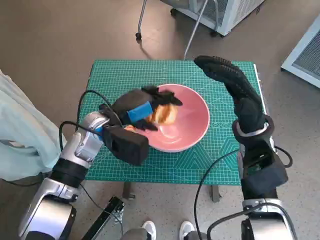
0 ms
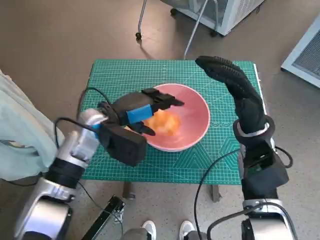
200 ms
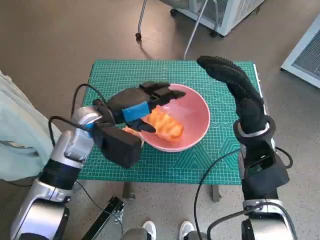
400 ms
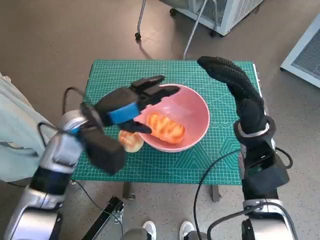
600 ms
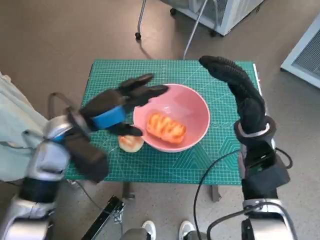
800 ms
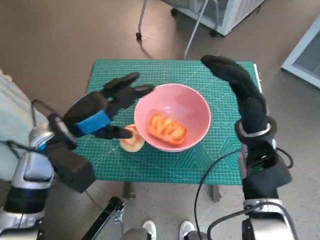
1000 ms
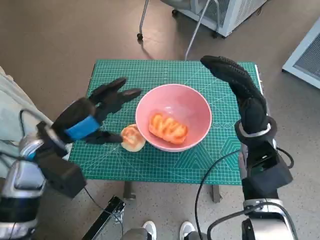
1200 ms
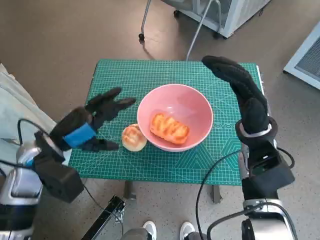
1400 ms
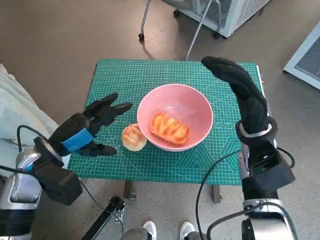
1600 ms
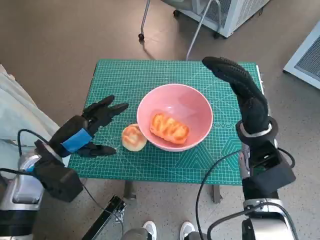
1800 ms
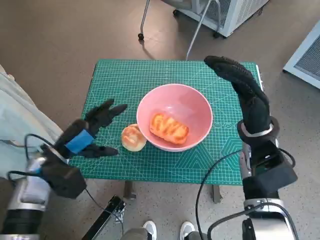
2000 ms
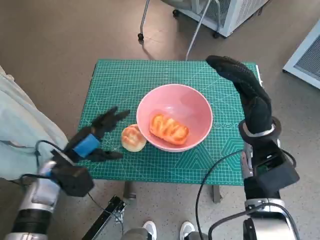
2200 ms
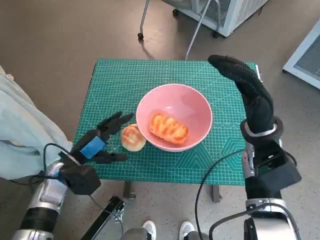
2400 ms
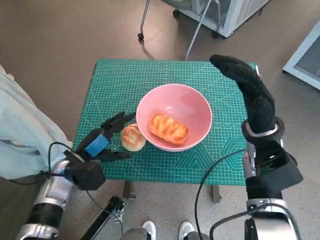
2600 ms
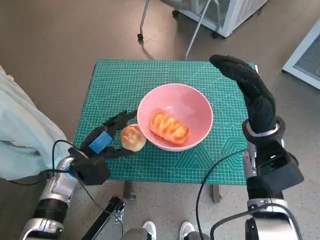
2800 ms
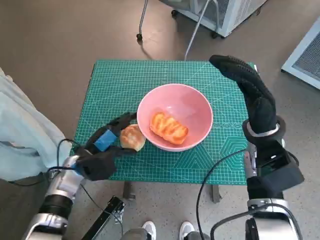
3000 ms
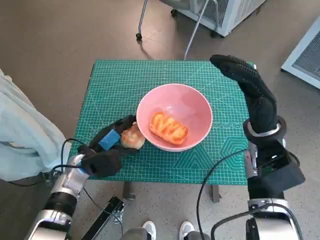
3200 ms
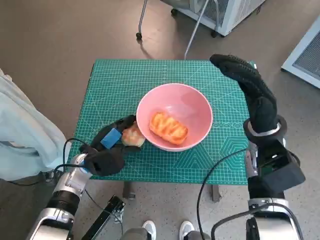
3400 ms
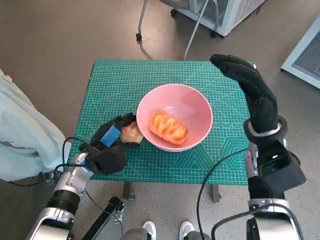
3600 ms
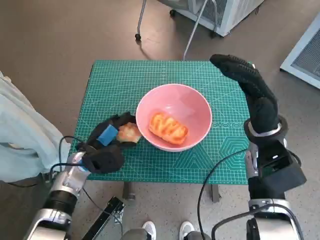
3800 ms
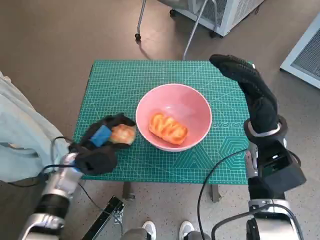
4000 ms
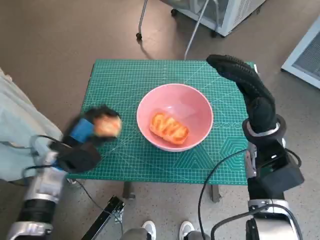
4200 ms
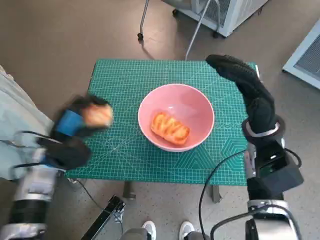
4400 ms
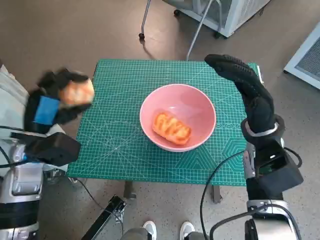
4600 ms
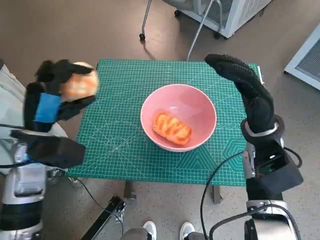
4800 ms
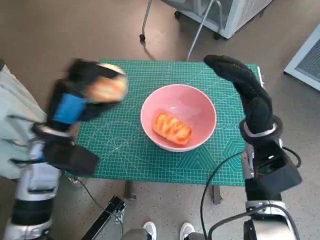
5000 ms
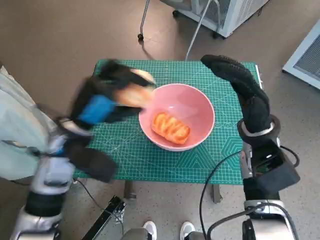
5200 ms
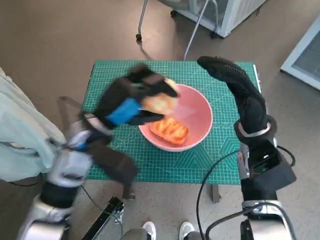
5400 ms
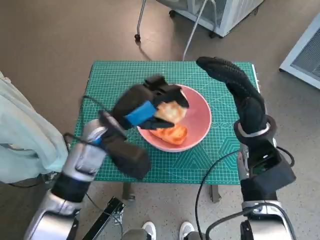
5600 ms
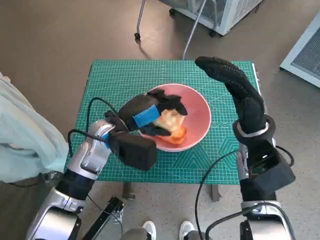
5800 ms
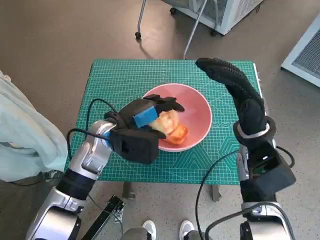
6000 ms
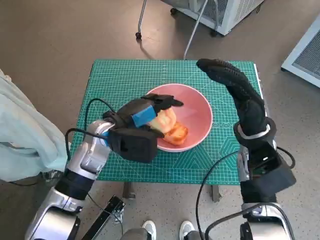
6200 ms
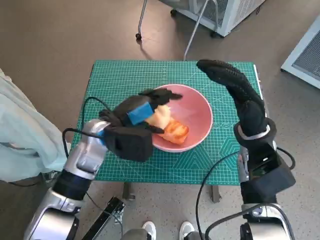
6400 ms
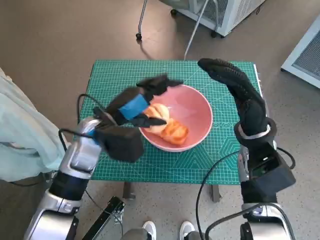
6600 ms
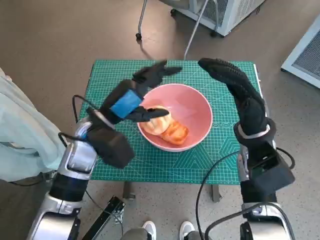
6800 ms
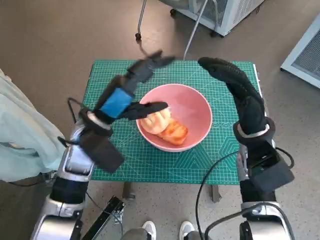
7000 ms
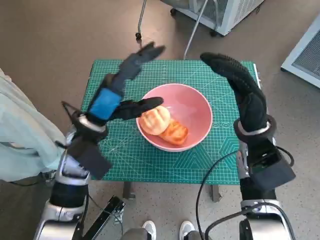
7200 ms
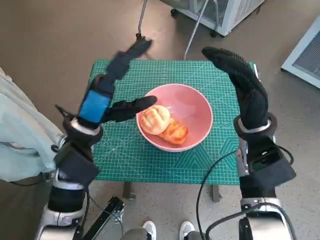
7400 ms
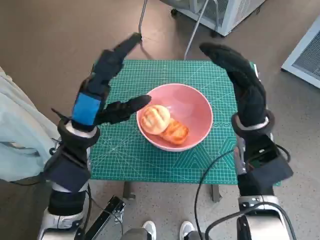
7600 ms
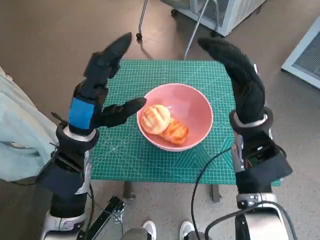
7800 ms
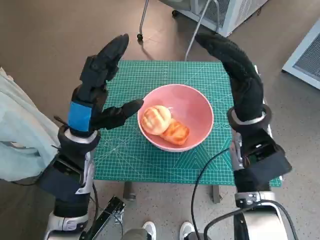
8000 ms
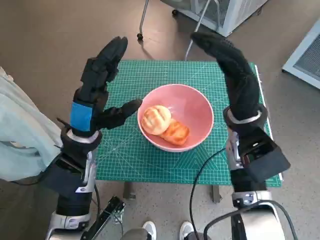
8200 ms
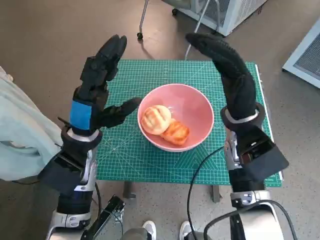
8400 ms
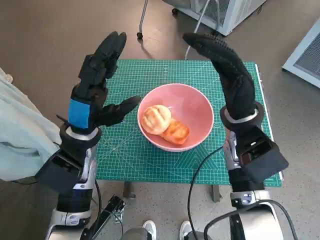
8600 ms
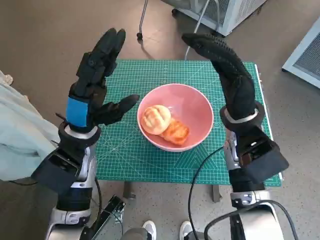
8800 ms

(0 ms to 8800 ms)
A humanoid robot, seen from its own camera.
Task of the whole recording: Push the bowl to the center of the table and put the bread into the bowl.
Step, 600 ms - 3600 ms: Grasp the round bread with left hand.
Step, 3800 ms - 6600 ms: Place the round bread in pink bowl with left hand.
0 ms - 1400 ms: The left hand shifts some 10 cm to the left and backward.
1400 ms - 3000 ms: The left hand shifts about 10 cm downward.
3000 ms - 4400 ms: The left hand goes approximately 5 cm upward.
4400 ms - 5800 ms: The left hand shifts approximately 15 cm to the right.
5800 ms - 7400 ms: The left hand moves roughly 5 cm.

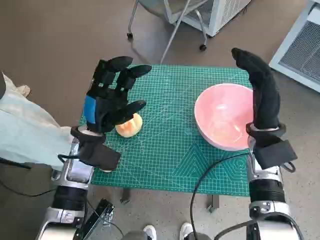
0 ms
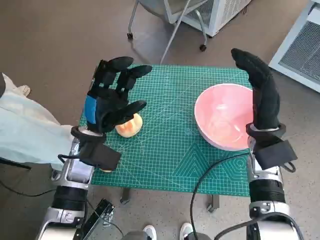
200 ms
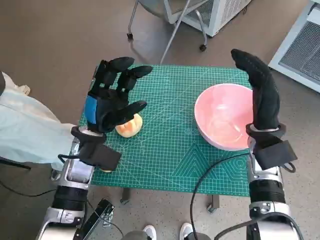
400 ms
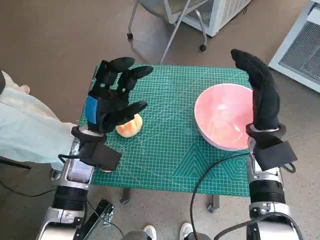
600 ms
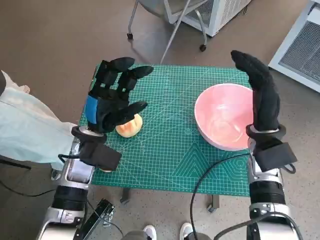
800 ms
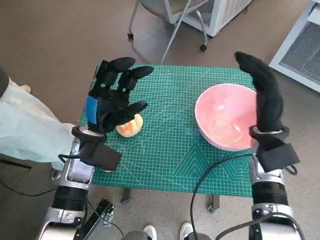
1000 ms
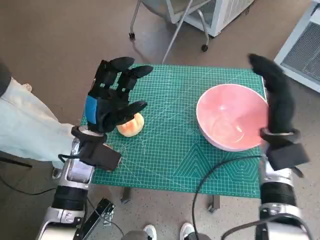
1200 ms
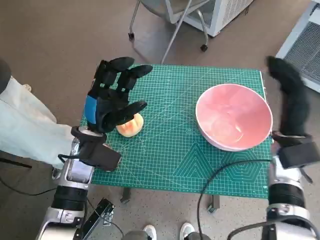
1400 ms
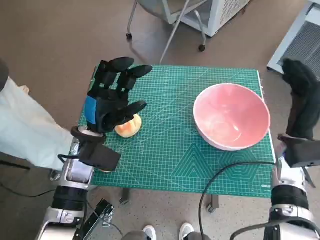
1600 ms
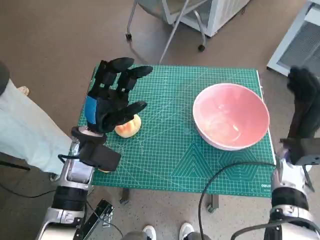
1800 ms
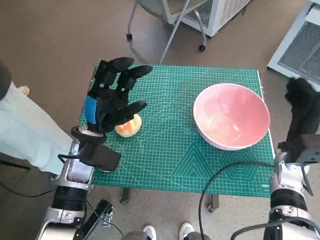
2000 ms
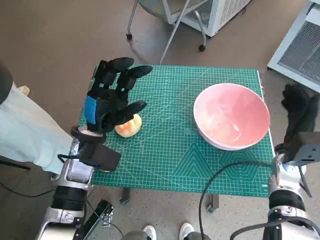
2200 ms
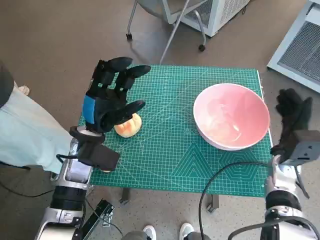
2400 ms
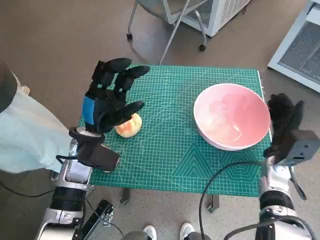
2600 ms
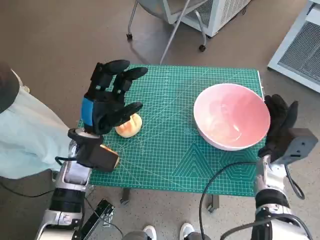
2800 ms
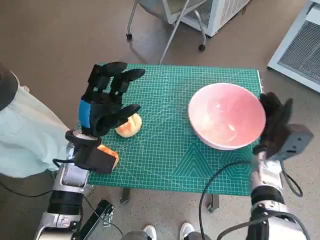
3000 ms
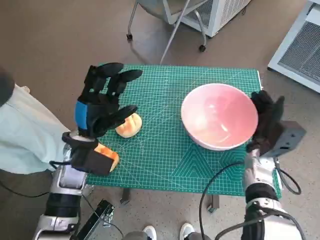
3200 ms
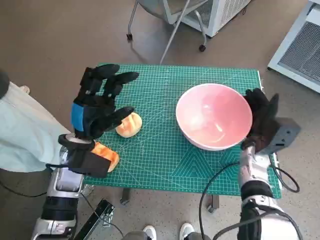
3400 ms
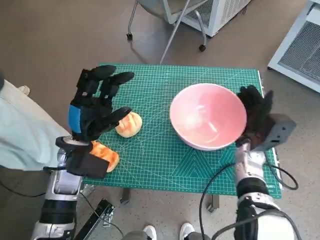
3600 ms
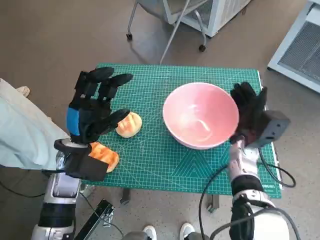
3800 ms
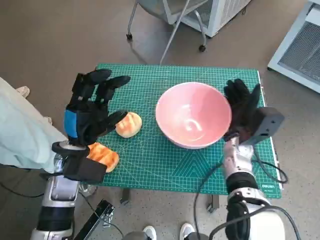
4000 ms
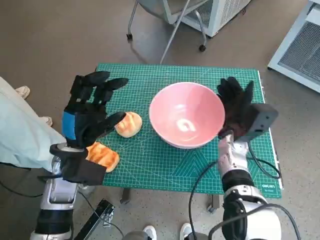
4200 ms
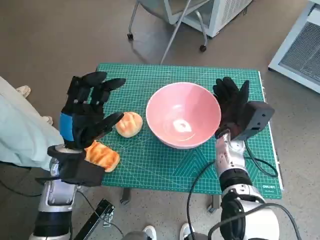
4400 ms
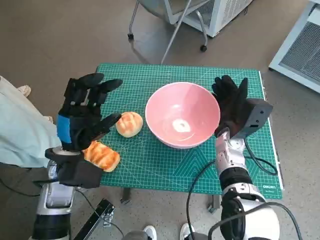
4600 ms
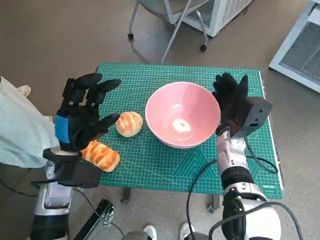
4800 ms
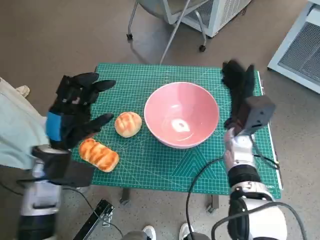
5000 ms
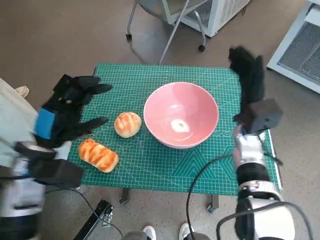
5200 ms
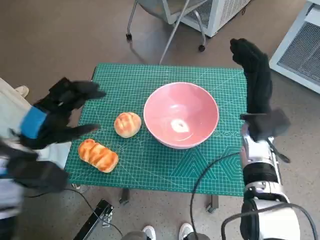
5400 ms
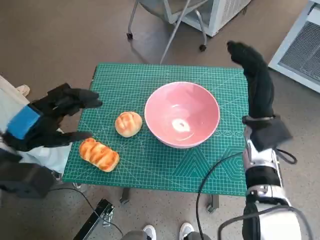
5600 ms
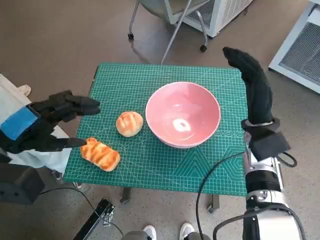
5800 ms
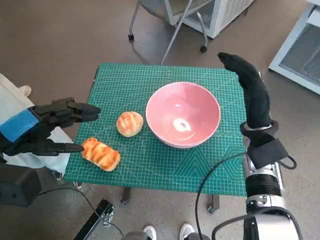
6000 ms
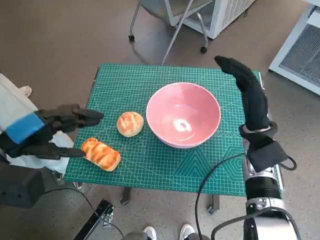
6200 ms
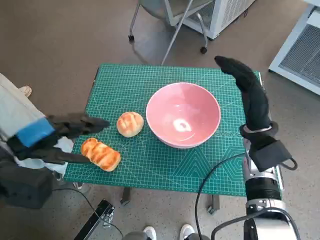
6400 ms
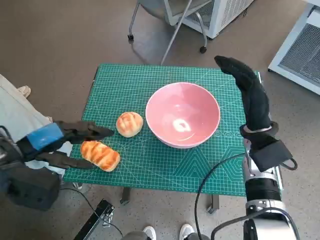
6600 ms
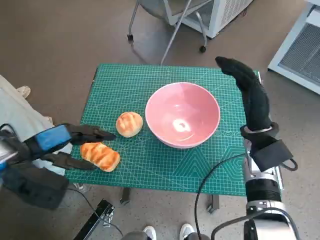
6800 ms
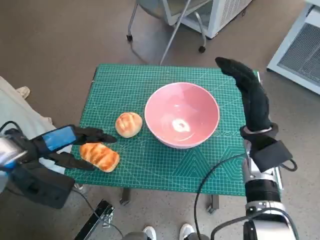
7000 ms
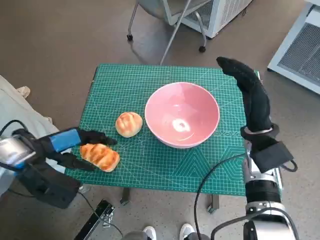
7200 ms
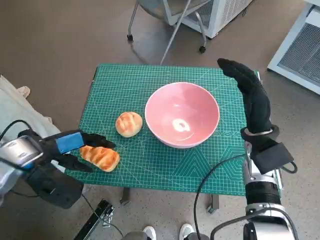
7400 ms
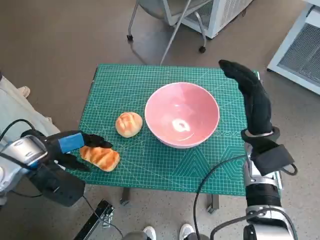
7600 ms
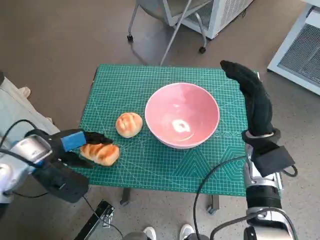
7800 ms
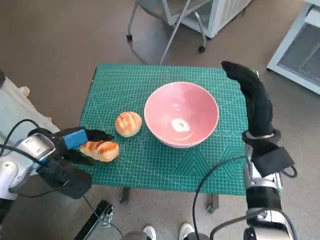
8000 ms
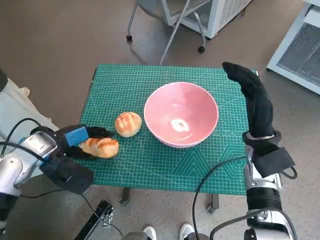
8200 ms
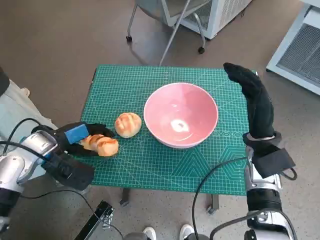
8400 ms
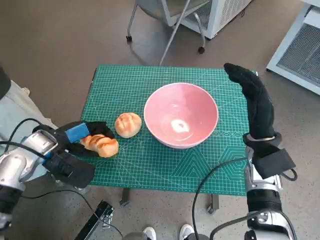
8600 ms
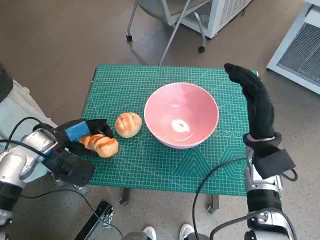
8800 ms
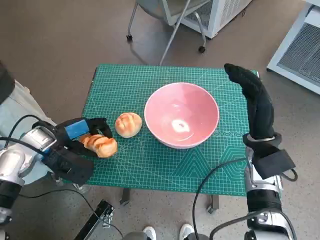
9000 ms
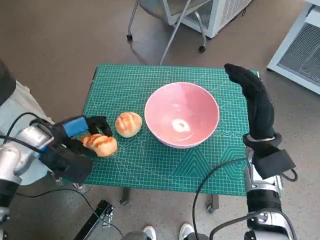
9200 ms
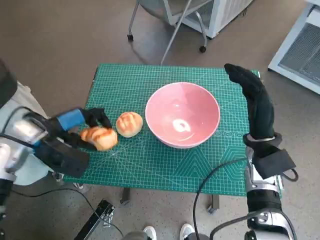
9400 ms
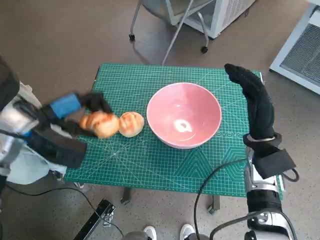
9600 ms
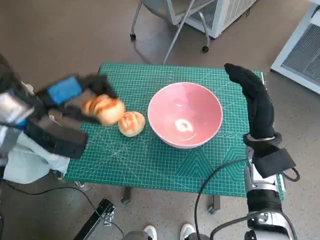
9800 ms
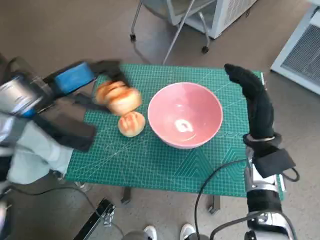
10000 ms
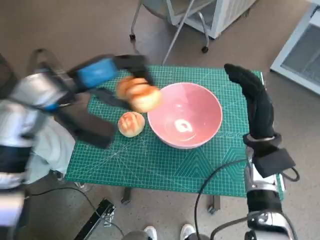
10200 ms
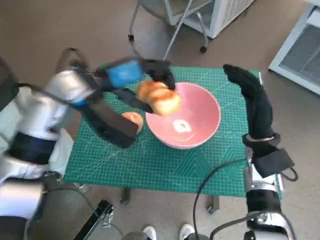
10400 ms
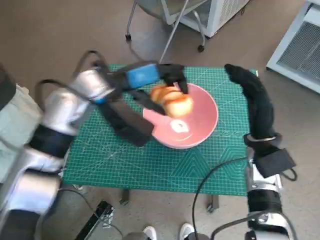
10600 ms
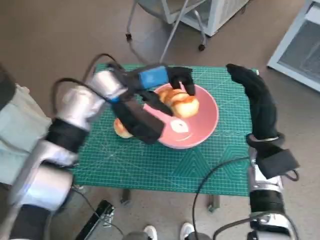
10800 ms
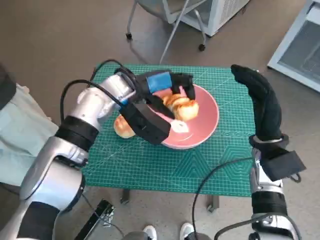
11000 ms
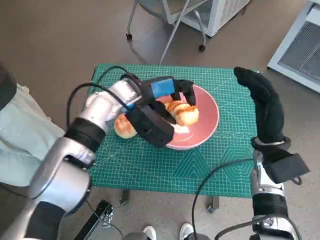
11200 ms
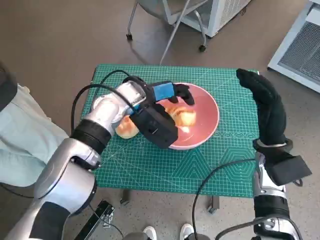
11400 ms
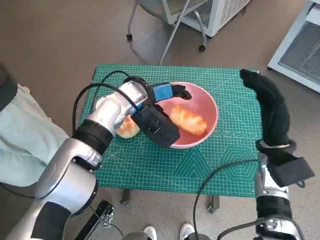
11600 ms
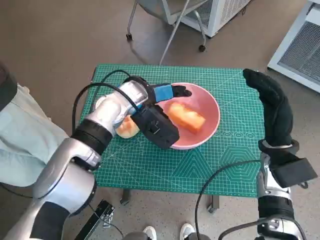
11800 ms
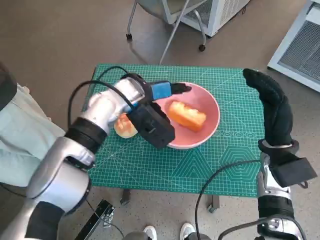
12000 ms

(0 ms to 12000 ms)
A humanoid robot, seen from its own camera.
Task of the whole recording: Push the bowl to the center of the table and put the bread into the bowl.
Step, 0 ms - 4800 ms: Move the pink bowl to the center of table with right hand.
Step, 5000 ms - 8400 ms: Grasp the long bread with left hand.
1600 ms - 3000 ms: The right hand shifts approximately 5 cm downward.
3000 ms - 4400 ms: The right hand heads to the left, covering about 10 cm.
4400 ms - 6000 ms: The right hand heads upward, covering some 5 cm. Meanwhile the left hand travels upward and to the left by some 15 cm.
6000 ms - 7600 ms: The left hand moves downward, about 5 cm.
7600 ms - 9000 ms: The left hand shifts by about 5 cm.
9000 ms - 10400 ms: The left hand shifts some 15 cm upward and to the right.
10400 ms - 12000 ms: The left hand shifts about 10 cm to the right and downward.

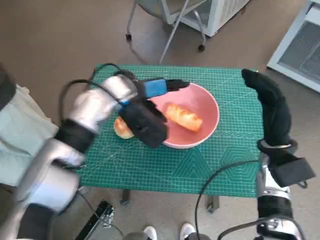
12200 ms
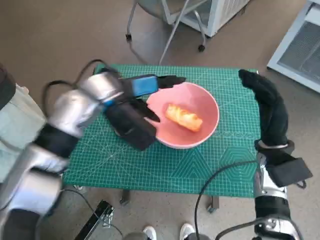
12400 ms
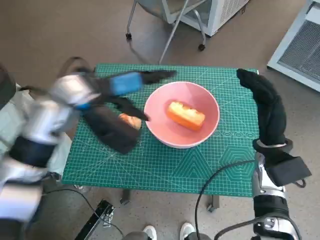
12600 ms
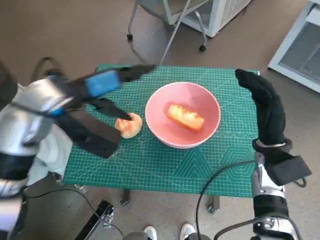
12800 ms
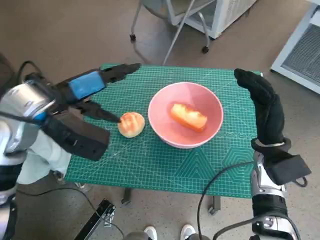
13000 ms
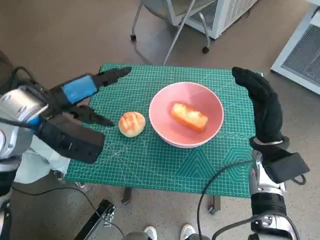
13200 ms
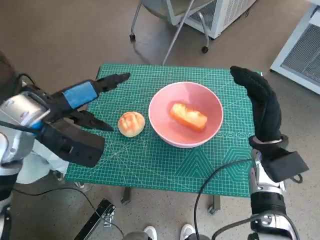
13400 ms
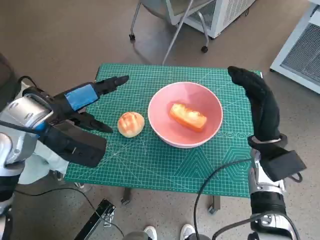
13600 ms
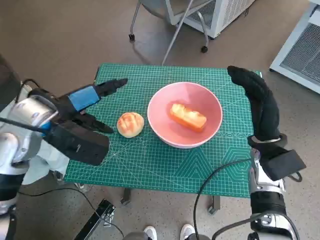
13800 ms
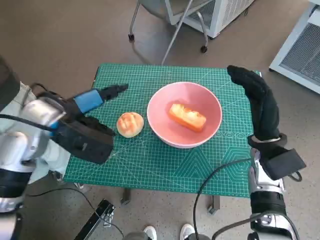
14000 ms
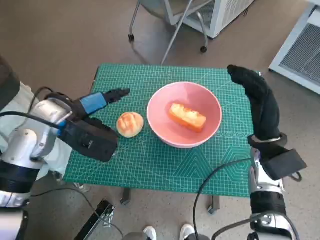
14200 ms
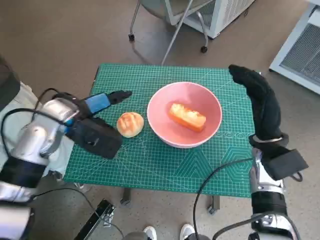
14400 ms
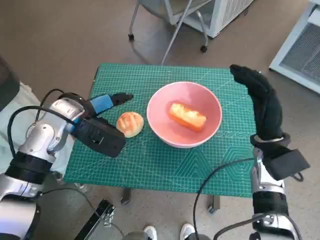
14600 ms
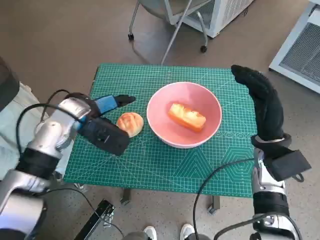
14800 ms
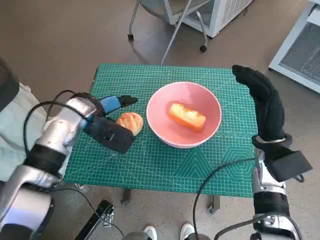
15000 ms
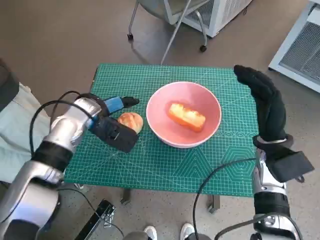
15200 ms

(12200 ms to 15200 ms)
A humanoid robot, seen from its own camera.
Task of the whole recording: Push the bowl to the center of the table and put the bread into the bowl.
12200 ms - 13800 ms: The left hand travels to the left and backward by about 15 cm.
13800 ms - 15200 ms: The left hand travels downward and forward by roughly 10 cm.
